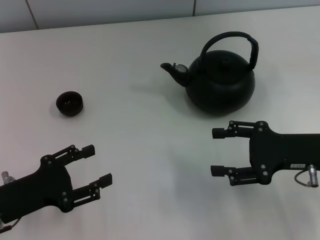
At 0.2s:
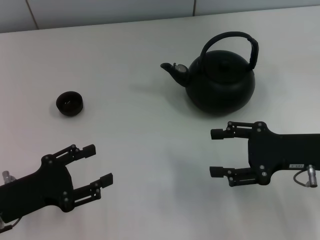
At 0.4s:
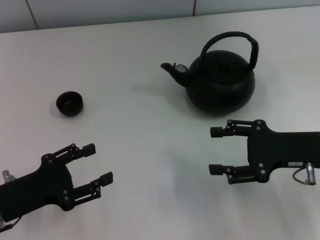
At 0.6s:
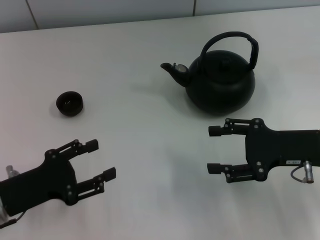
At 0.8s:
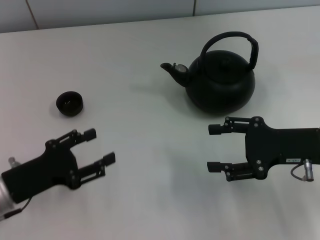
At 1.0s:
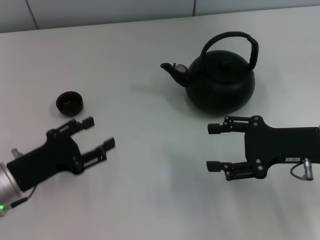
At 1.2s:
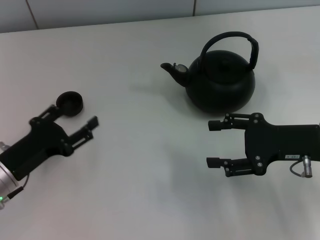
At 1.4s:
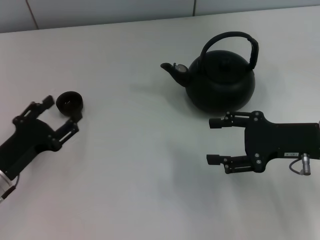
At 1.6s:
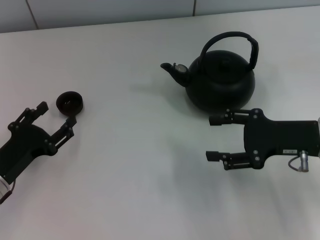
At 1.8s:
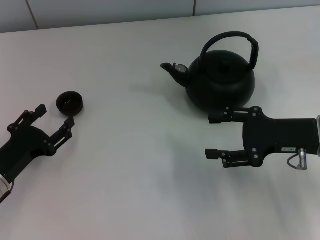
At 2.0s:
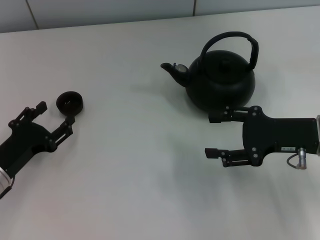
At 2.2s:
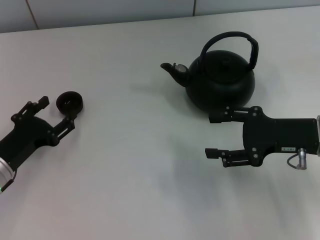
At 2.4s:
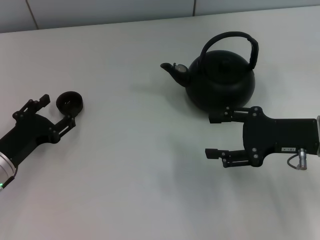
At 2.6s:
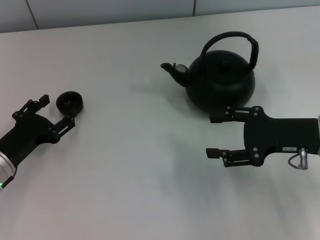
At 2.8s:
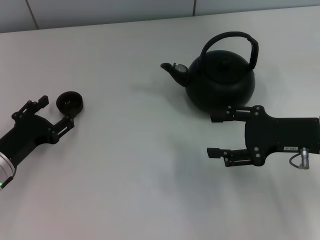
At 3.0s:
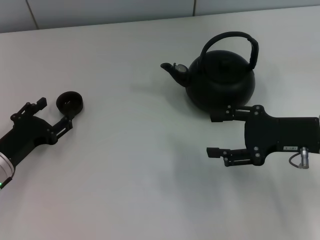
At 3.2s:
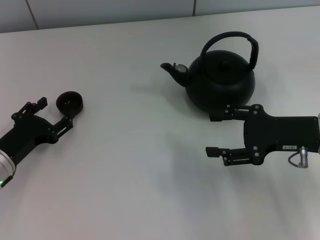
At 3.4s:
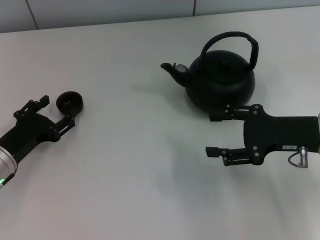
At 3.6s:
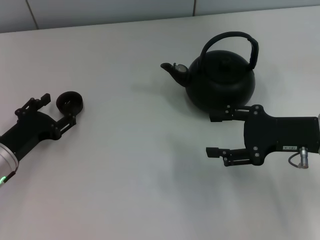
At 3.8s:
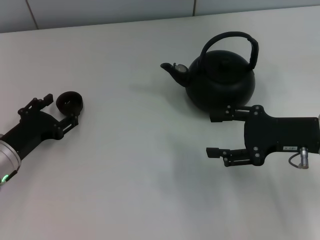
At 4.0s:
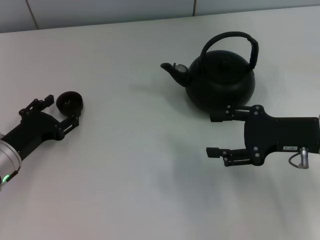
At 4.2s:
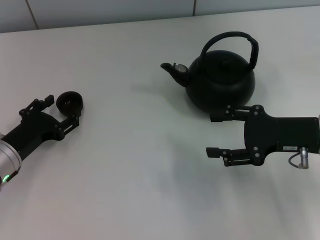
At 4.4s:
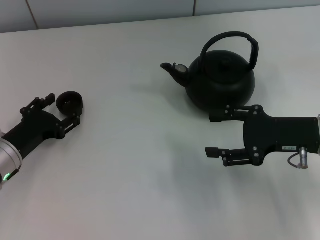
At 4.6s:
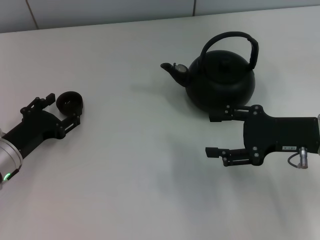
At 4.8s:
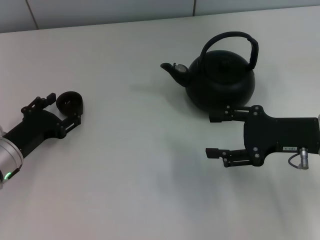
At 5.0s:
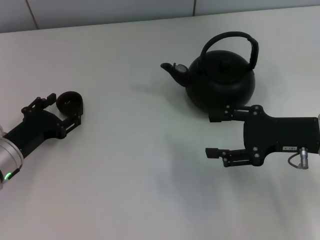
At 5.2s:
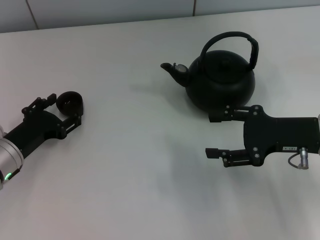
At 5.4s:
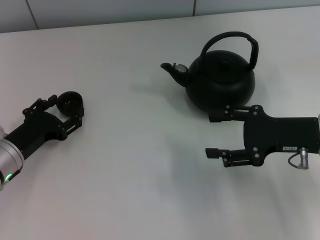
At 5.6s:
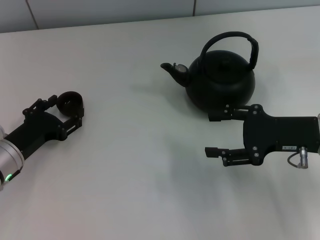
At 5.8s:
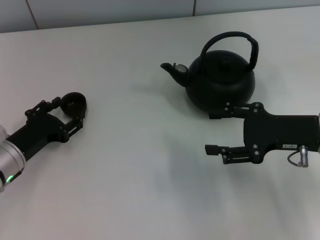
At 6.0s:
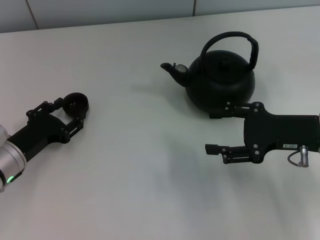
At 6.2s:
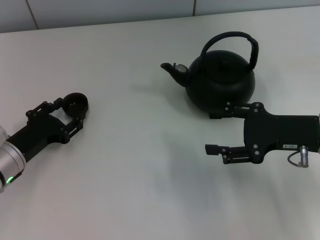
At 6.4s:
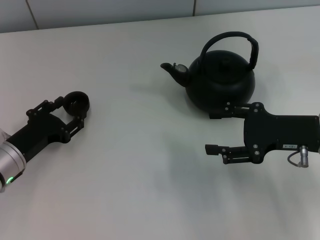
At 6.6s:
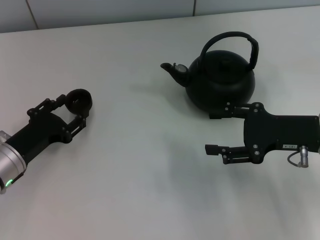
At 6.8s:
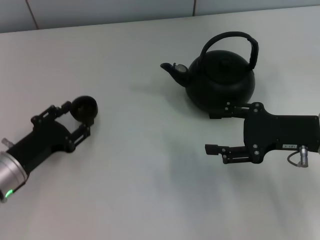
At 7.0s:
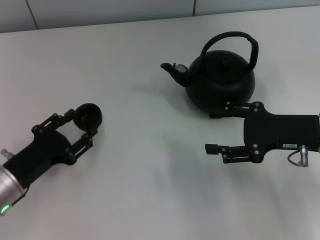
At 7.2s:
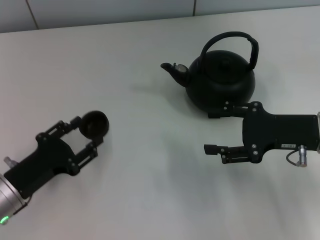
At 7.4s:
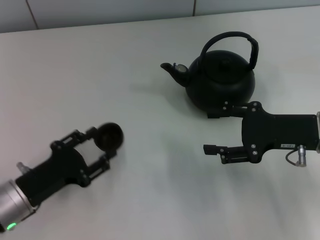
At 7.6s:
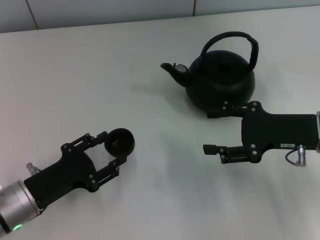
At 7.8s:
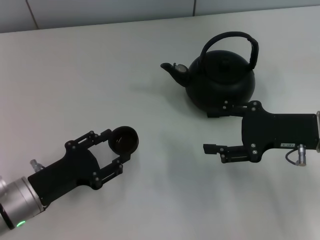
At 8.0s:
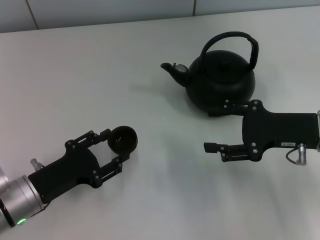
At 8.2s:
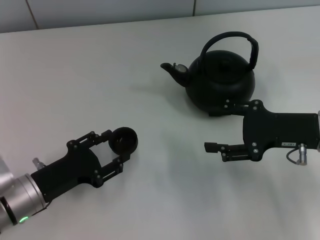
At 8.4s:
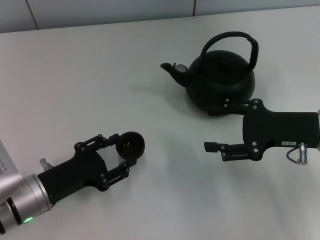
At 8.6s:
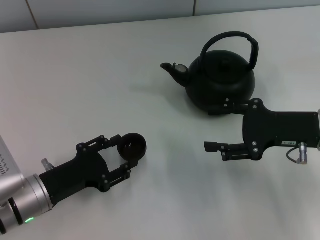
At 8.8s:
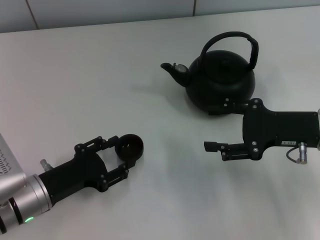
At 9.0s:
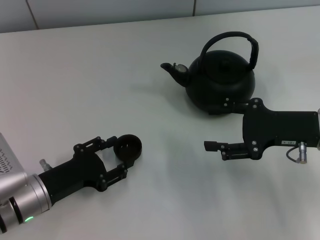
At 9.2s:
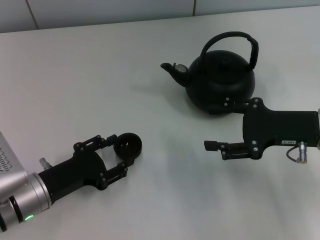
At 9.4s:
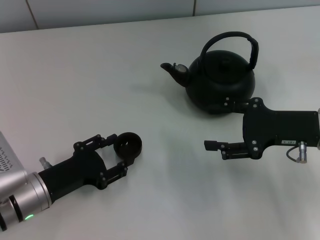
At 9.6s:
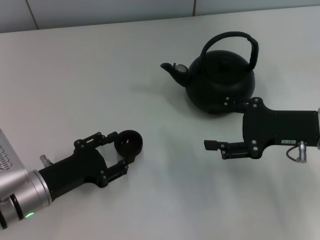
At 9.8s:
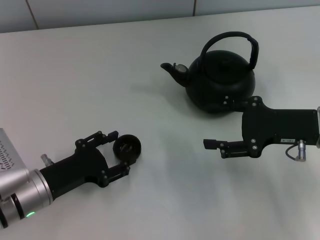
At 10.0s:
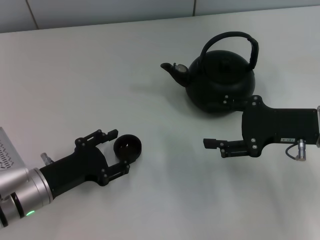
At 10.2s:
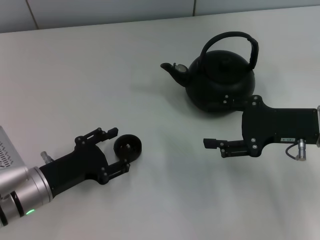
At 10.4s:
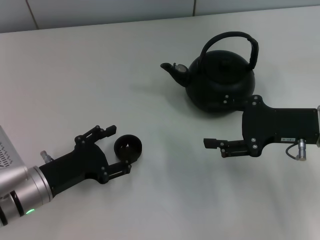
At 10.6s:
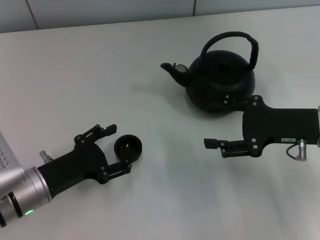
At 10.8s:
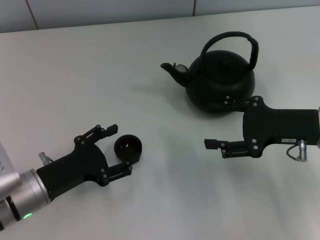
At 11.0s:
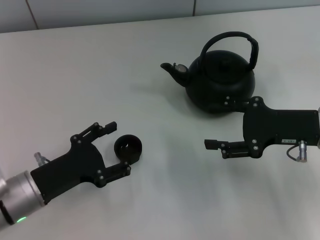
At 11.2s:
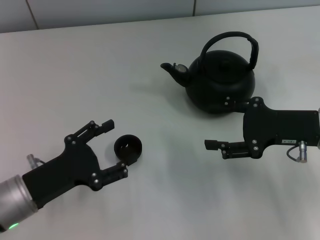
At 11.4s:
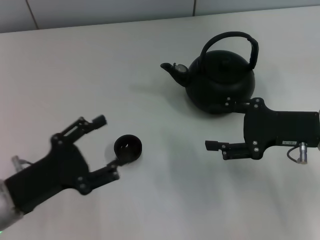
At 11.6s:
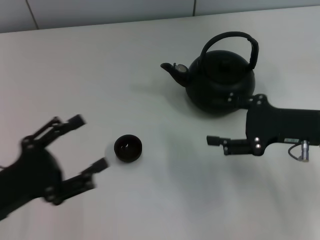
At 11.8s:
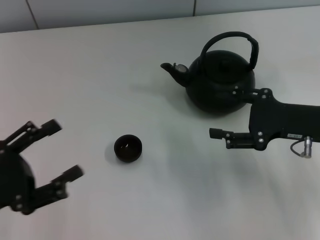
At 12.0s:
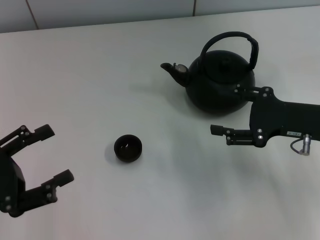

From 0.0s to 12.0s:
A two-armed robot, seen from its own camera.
Task of the whole recording: Grasp the handle of the teapot with one hand and pour tea into the teacup.
Step, from 0.0s to 6.6s: Pick up the teacup with the left gripper.
Step, from 6.8s to 11.2s: Place the teacup in the center of view with the left gripper.
From 1.6s to 4.4s: The grippers move only a little.
From 4.4s to 6.0s: The left gripper closes.
From 6.0s to 7.6s: The left gripper is displaced backward by about 5 cm.
From 7.6s to 9.0s: There are only small adjustments of the grippers.
From 9.0s to 10.4s: The left gripper opens.
From 10.4s to 12.0s: The left gripper is displaced to the left, upward and backward by roughly 15 cm.

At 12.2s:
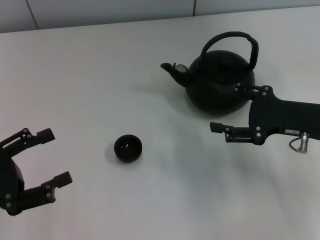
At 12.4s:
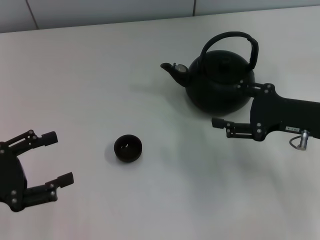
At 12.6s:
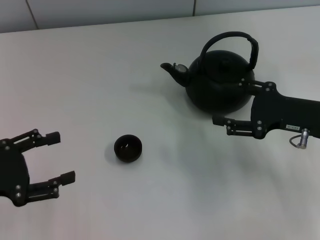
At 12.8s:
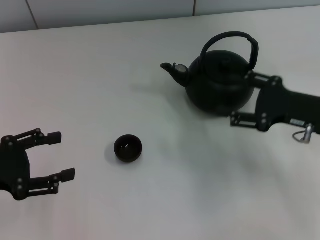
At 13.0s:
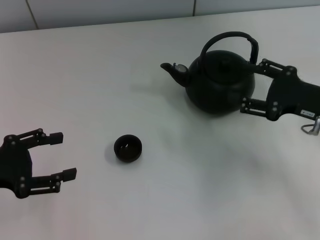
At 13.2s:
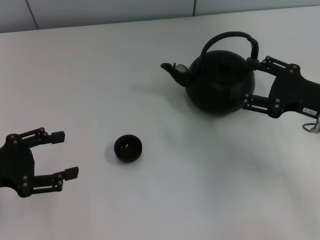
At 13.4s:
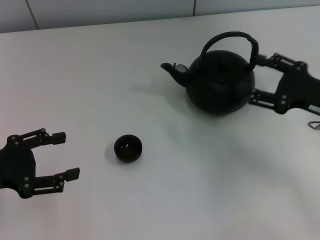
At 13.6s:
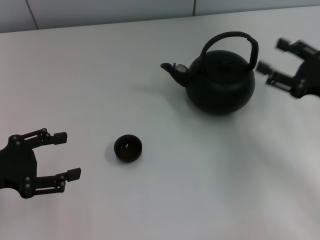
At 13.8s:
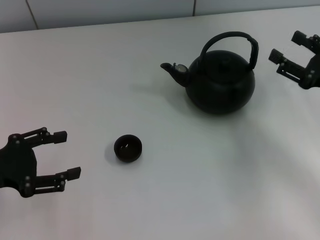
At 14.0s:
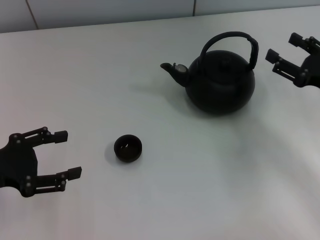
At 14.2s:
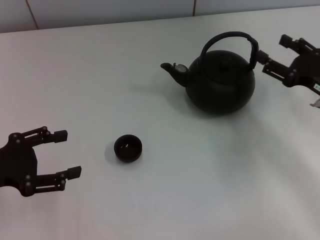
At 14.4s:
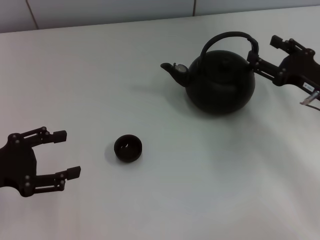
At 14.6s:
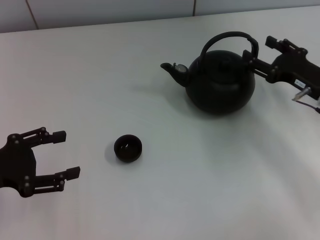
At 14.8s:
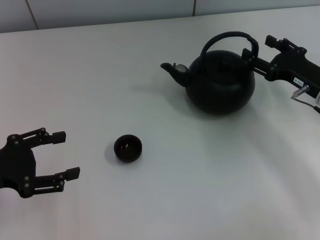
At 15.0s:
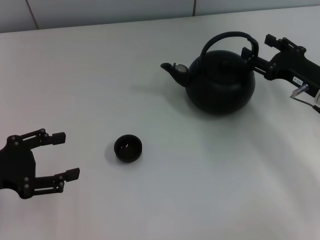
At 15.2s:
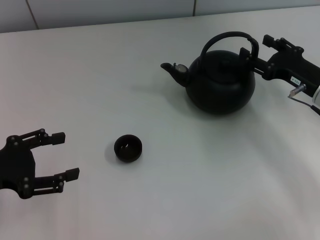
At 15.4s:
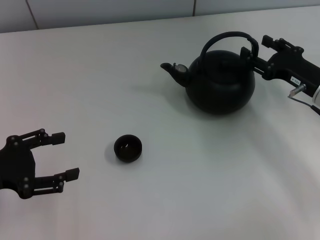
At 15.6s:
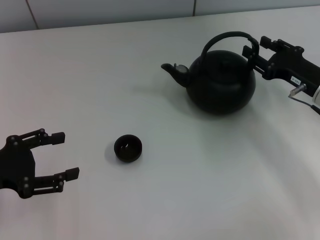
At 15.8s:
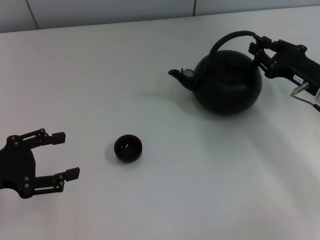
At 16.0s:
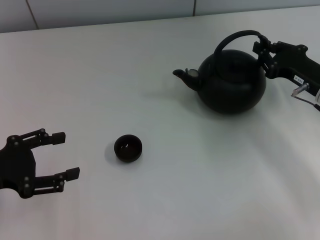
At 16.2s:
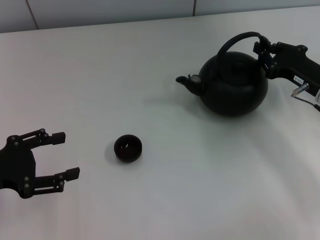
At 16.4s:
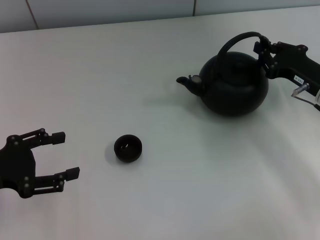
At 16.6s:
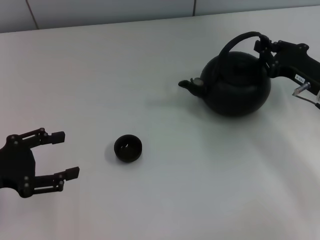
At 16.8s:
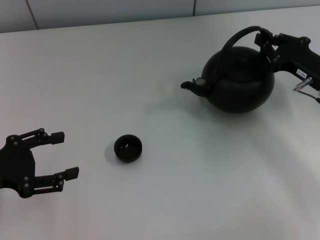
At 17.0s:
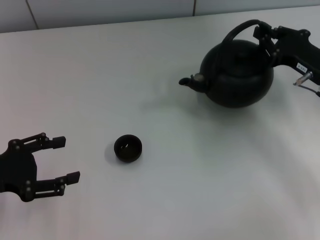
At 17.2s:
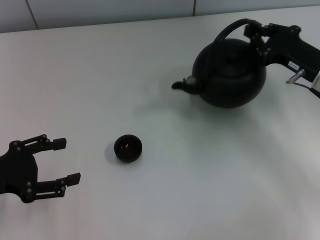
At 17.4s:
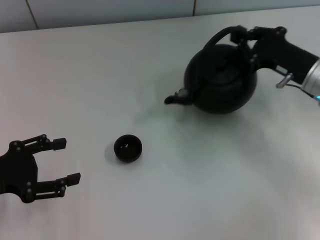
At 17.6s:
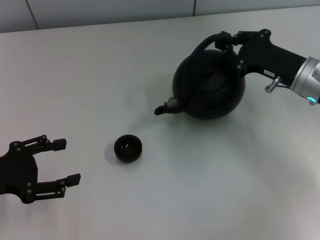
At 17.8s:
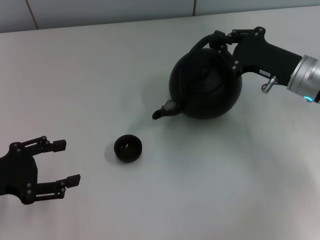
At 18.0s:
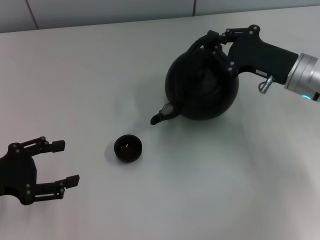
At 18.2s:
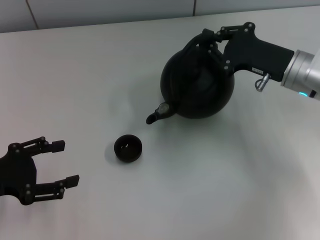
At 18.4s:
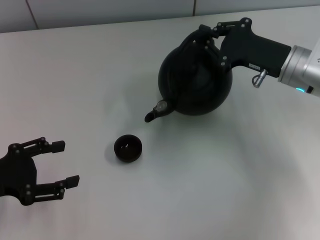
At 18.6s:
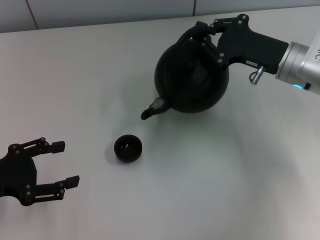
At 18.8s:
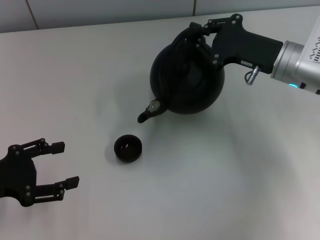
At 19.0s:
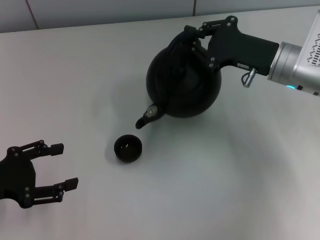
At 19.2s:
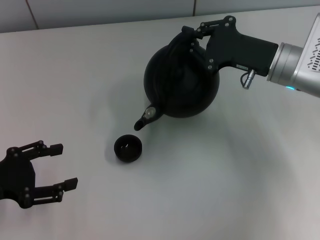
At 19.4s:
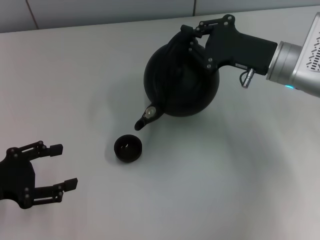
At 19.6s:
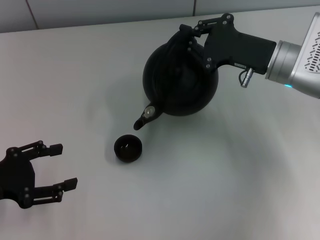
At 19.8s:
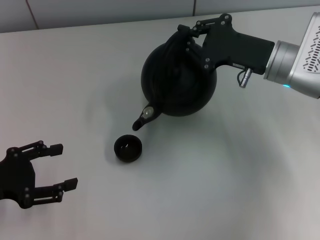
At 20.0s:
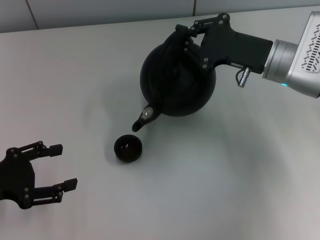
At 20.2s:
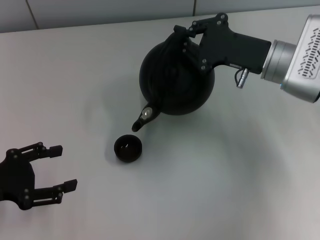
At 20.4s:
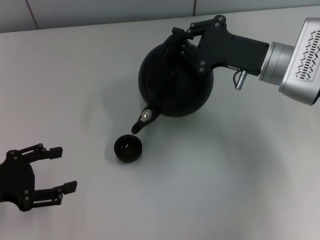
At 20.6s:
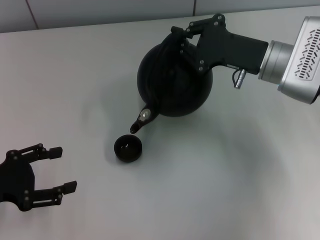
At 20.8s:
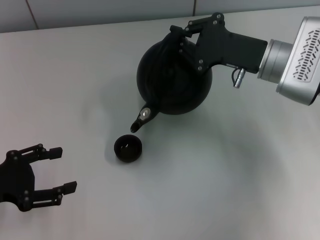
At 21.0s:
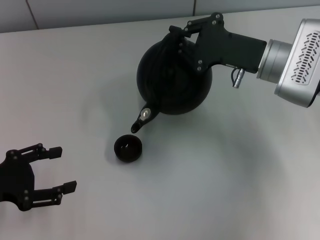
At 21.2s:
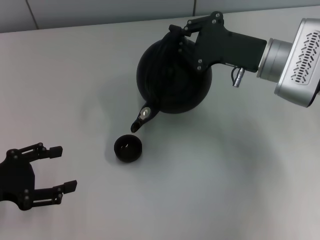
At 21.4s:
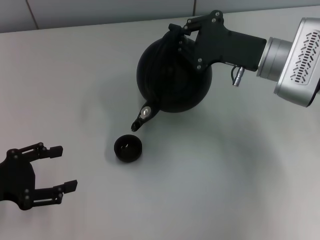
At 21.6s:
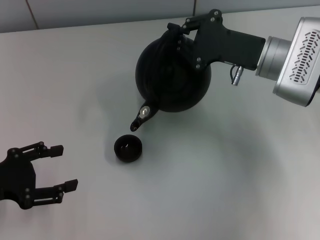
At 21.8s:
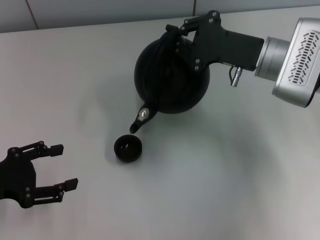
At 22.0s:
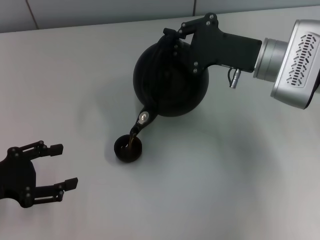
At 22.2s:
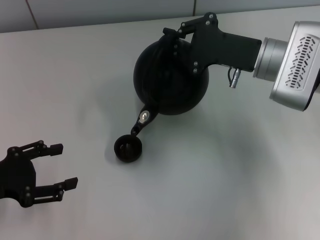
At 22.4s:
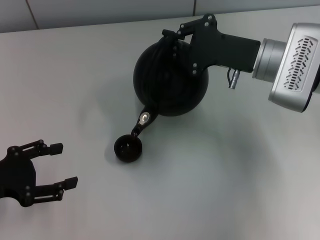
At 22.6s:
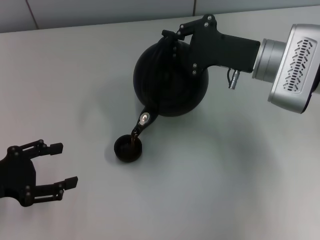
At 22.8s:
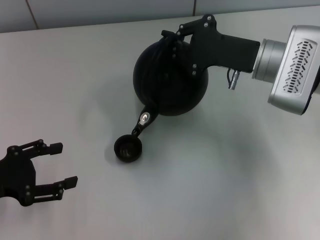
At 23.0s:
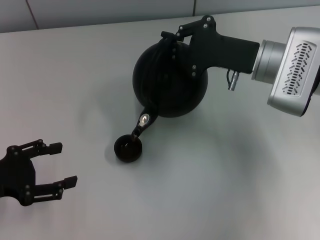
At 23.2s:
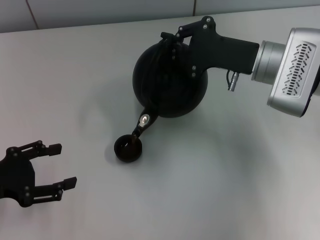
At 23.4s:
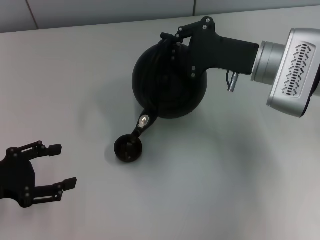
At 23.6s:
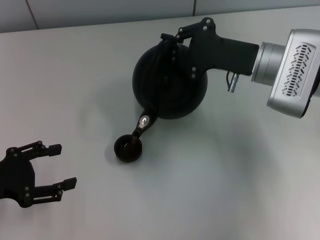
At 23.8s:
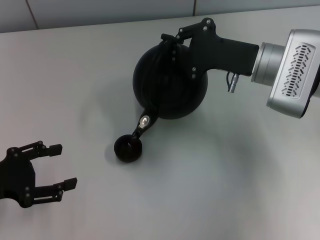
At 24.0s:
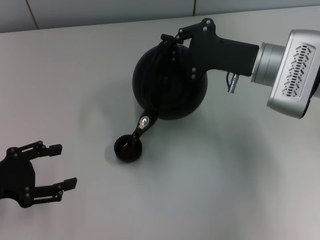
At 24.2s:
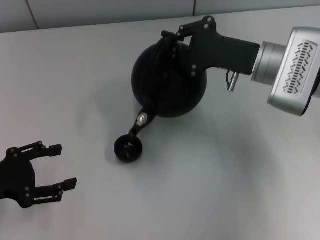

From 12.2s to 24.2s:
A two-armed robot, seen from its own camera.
Task of the whole recording: Grasp the handle of the teapot with one hand and pour tea into the teacup.
Step, from 12.2s to 17.0s: Pick up the teapot with the right gripper.
From 12.2s to 13.8s: The right gripper heads to the right, covering roughly 5 cm.
From 13.8s to 15.2s: The right gripper goes some 5 cm forward.
From 15.2s to 16.6s: The right gripper closes.
From 16.6s to 18.2s: The right gripper moves to the left, about 5 cm.
From 18.2s to 21.2s: The grippers stay close to where they were, moving slightly.
From 21.2s to 22.6s: The grippers make only small movements.
From 22.6s to 24.2s: The two grippers keep their place.
